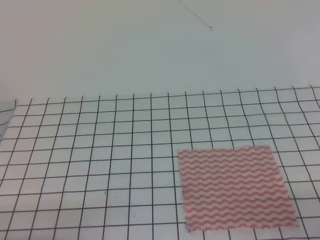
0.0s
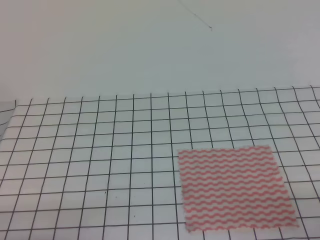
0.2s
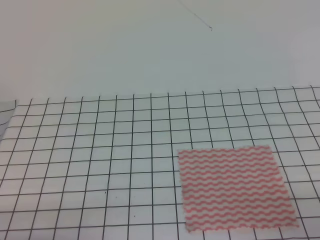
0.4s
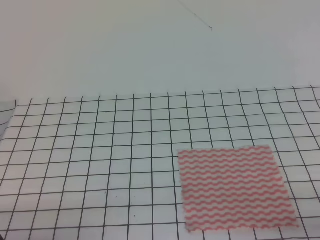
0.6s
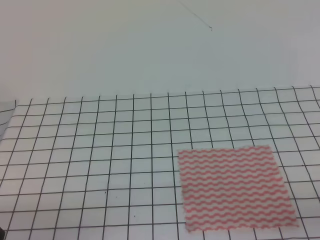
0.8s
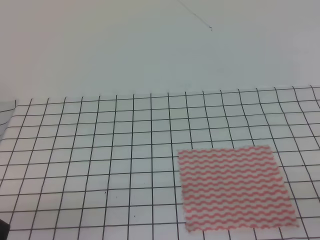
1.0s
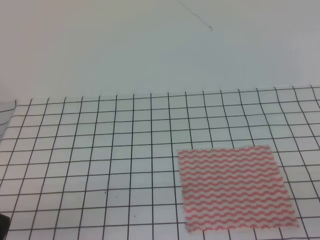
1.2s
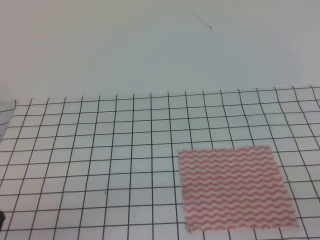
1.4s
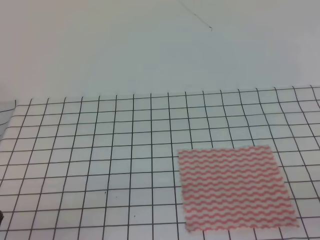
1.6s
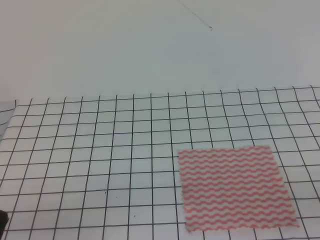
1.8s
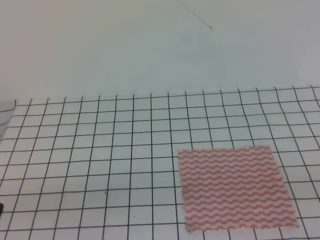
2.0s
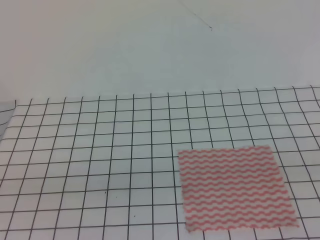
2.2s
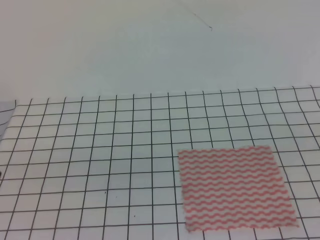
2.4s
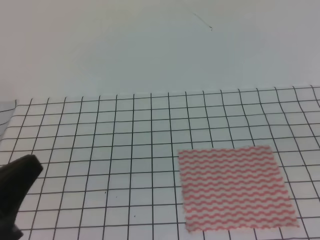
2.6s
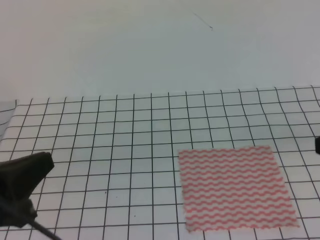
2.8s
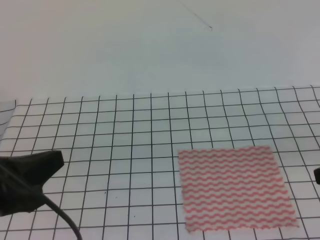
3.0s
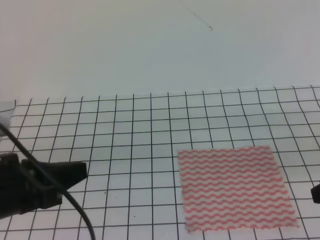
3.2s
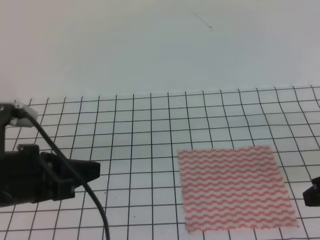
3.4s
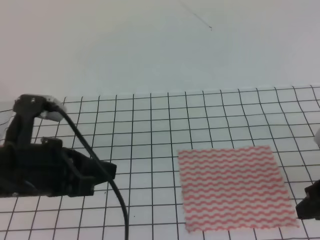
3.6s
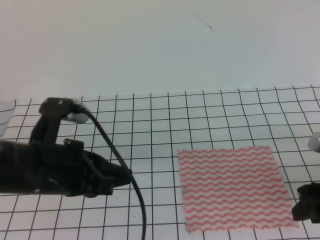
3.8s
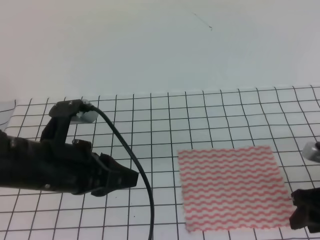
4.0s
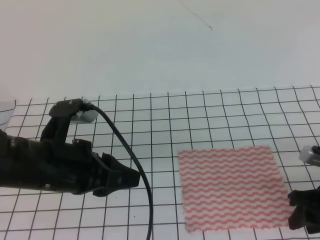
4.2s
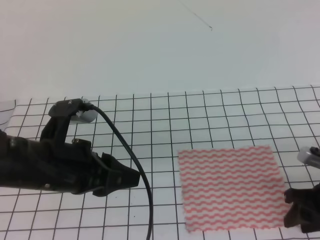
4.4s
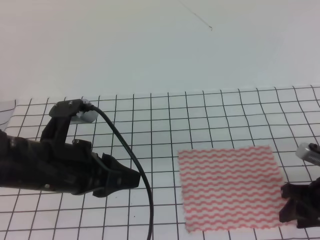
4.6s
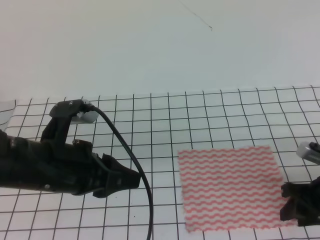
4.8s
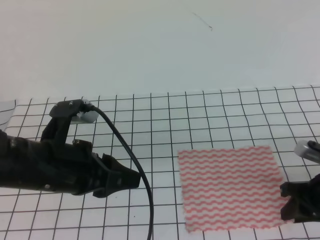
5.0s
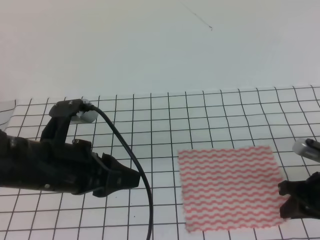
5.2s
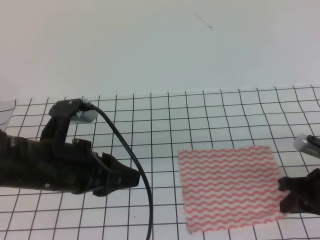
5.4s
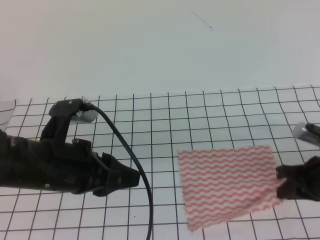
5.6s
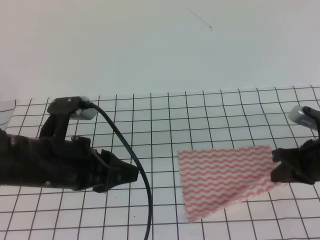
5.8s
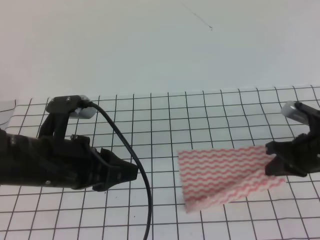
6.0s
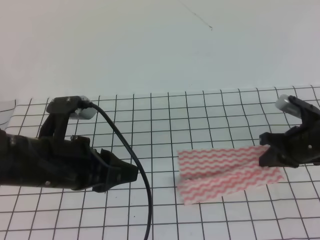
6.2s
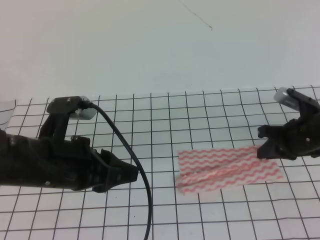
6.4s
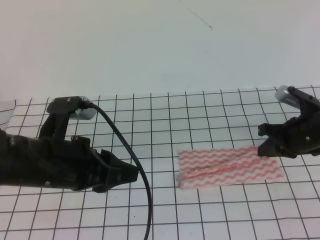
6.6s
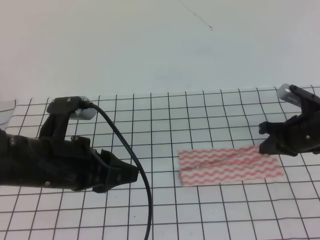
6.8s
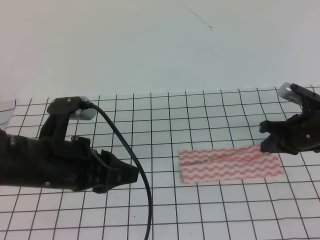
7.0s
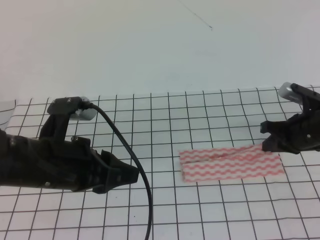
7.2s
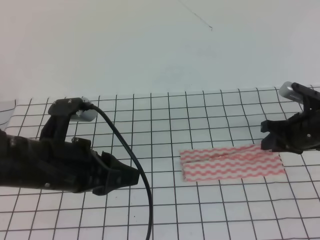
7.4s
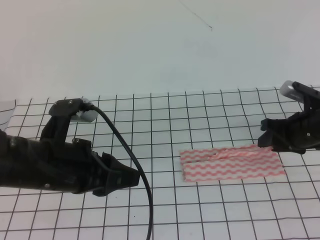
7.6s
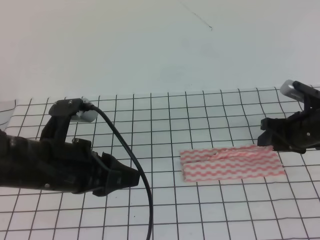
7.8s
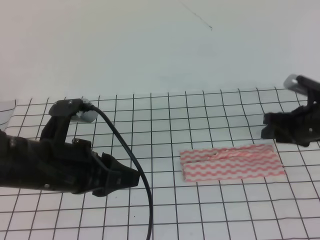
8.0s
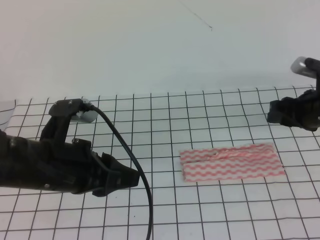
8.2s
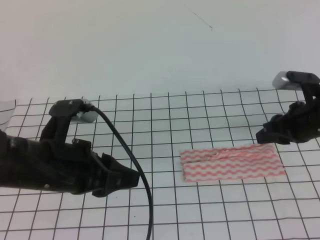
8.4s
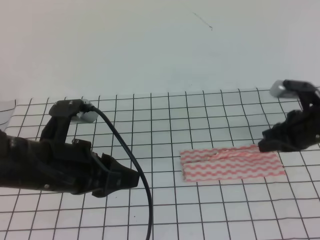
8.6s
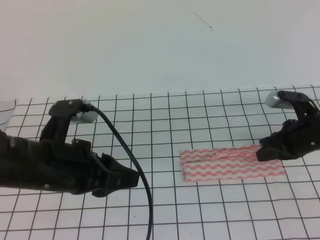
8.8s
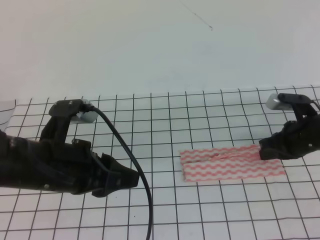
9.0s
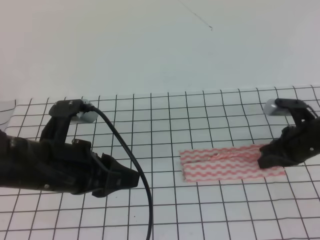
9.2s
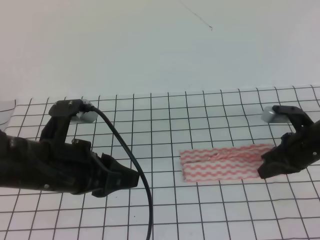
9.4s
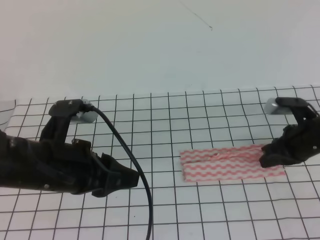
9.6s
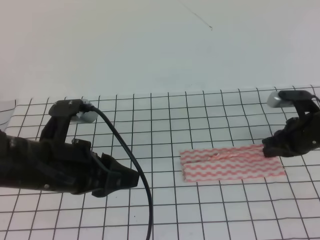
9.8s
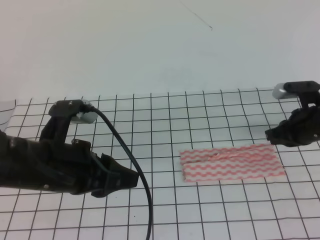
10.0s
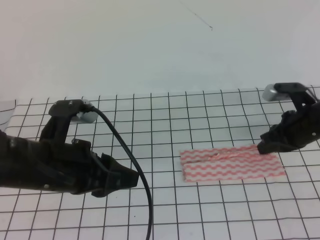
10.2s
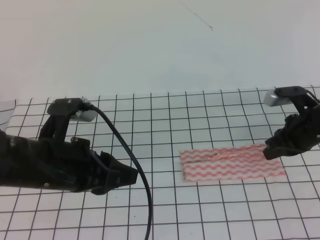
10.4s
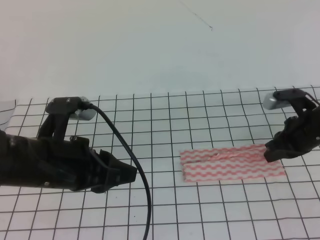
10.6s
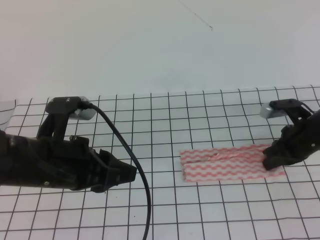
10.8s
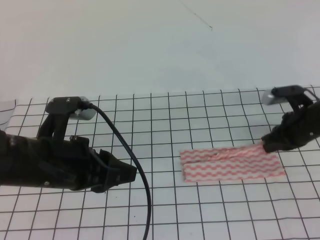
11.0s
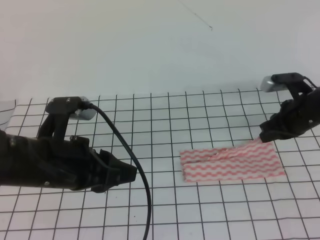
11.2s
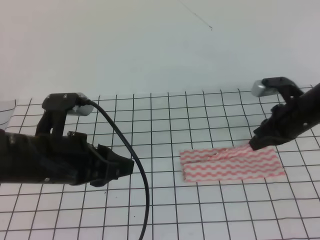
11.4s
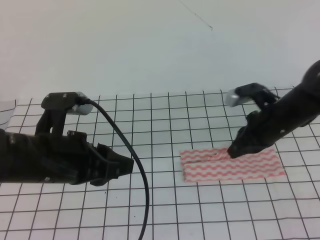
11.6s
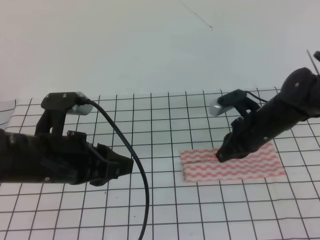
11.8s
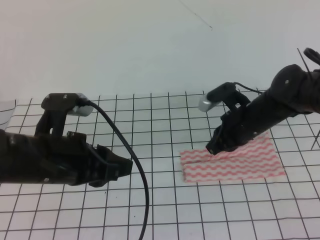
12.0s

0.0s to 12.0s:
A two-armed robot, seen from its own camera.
Step, 0.0s to 5.0s: Fold the towel upwards with the right gripper.
1.6s to 3.0s: The left gripper shifts some 15 cm upward and forward.
3.0s to 4.4s: The left gripper goes some 10 cm forward and to the right, and opens its fingers; the right gripper moves downward and forward, approximately 15 cm, and opens up.
4.4s to 6.0s: The right gripper is displaced forward by roughly 5 cm, and closes its fingers.
6.0s to 7.6s: The right gripper goes some 5 cm forward, and opens.
7.6s to 9.0s: The right gripper closes its fingers.
9.0s to 10.4s: The grippers move only a little.
10.4s to 12.0s: The right gripper moves to the left, approximately 10 cm.

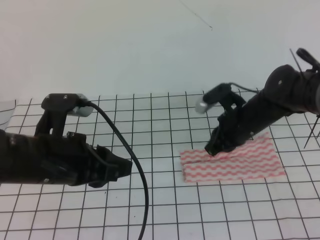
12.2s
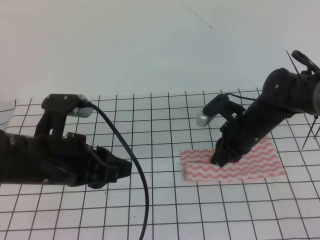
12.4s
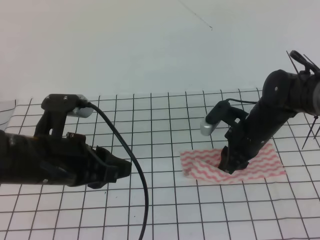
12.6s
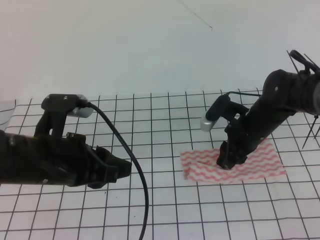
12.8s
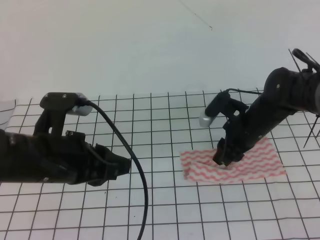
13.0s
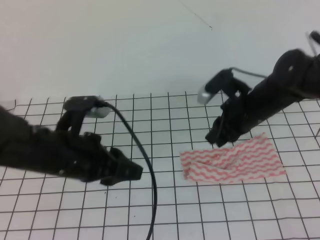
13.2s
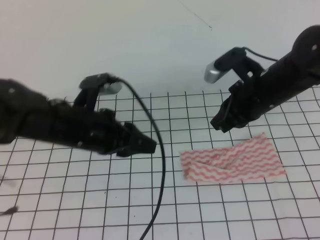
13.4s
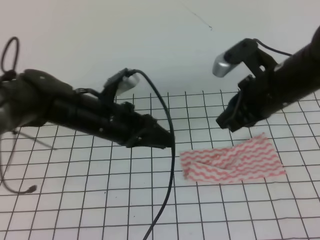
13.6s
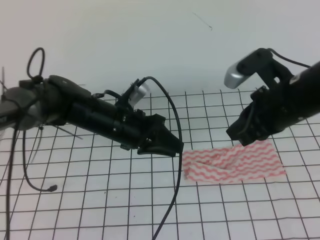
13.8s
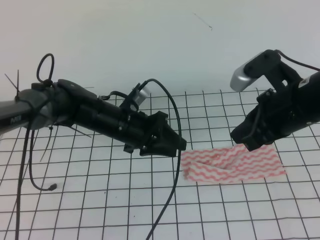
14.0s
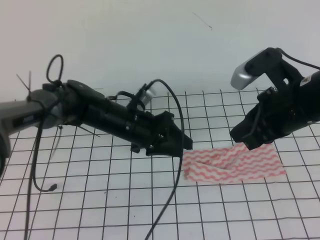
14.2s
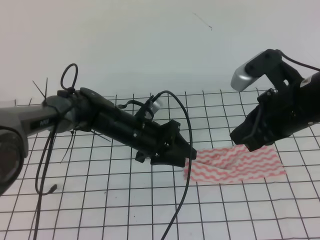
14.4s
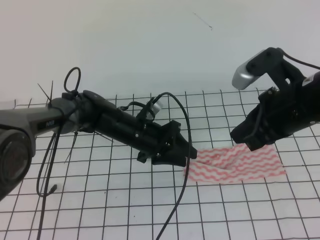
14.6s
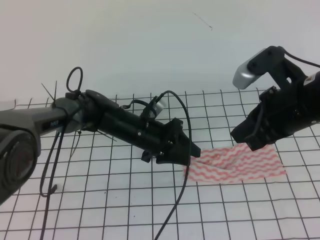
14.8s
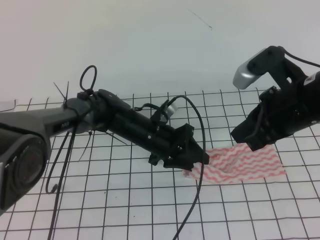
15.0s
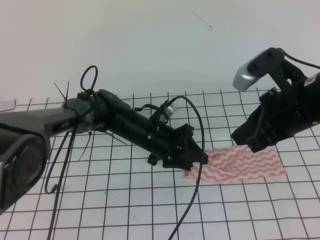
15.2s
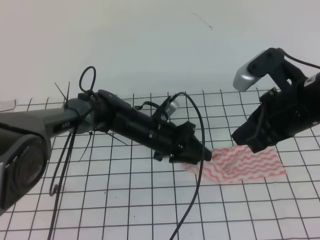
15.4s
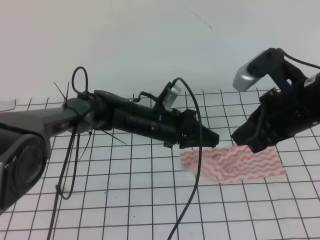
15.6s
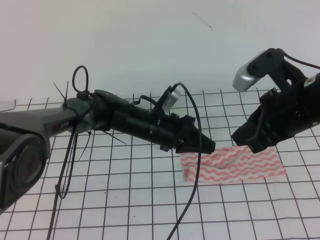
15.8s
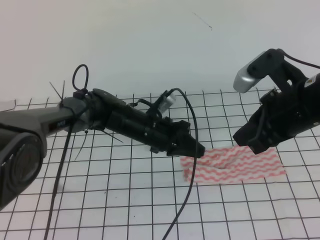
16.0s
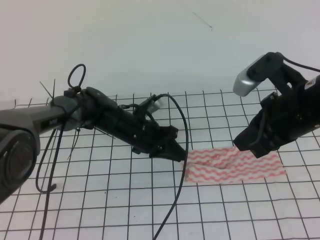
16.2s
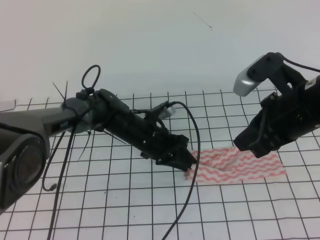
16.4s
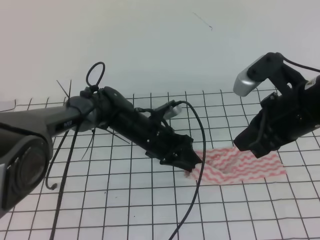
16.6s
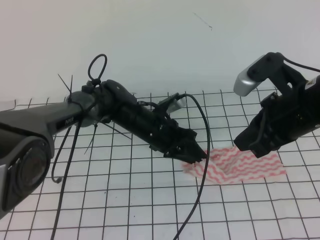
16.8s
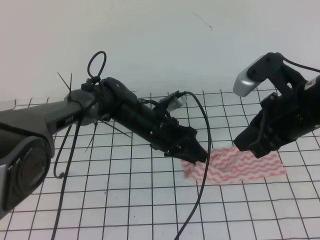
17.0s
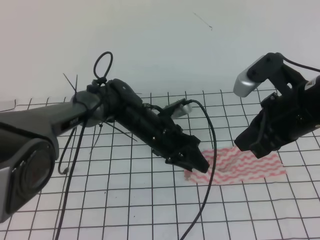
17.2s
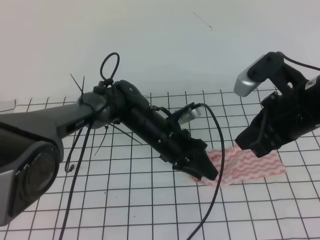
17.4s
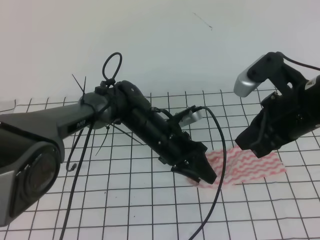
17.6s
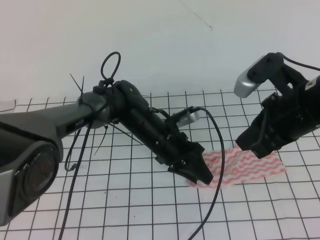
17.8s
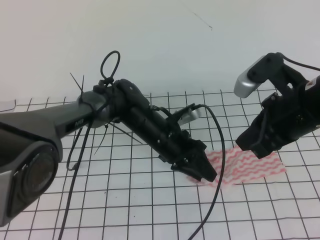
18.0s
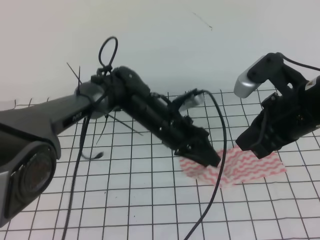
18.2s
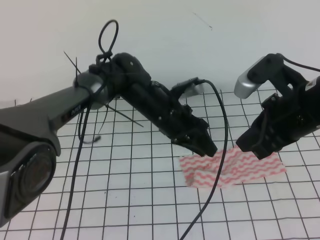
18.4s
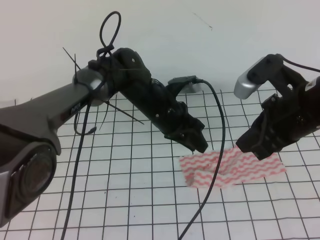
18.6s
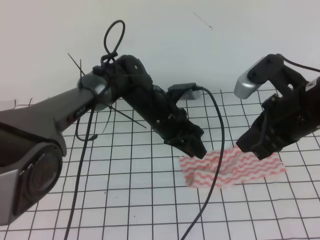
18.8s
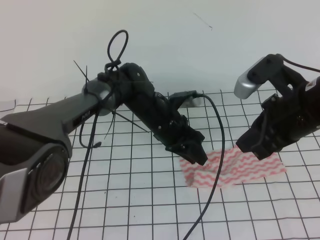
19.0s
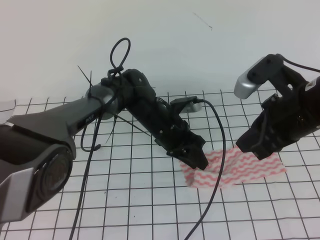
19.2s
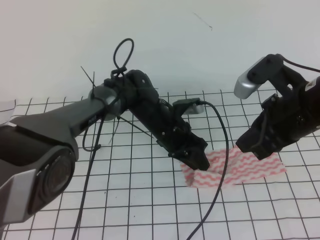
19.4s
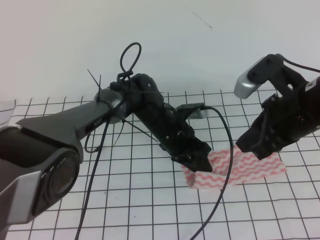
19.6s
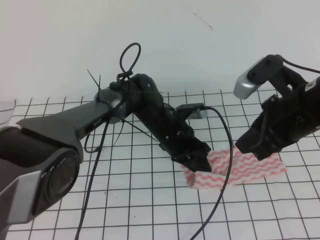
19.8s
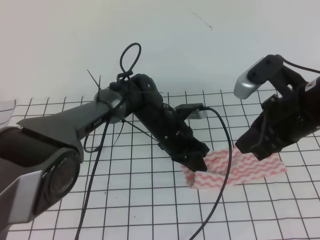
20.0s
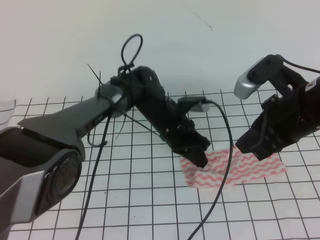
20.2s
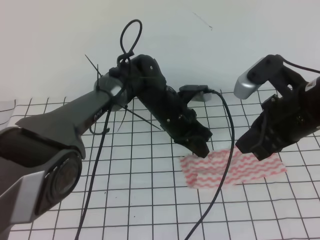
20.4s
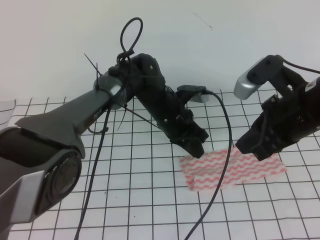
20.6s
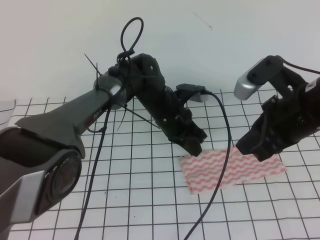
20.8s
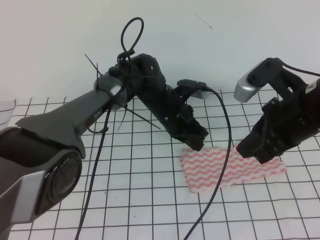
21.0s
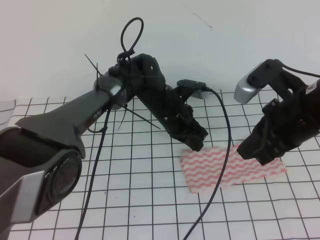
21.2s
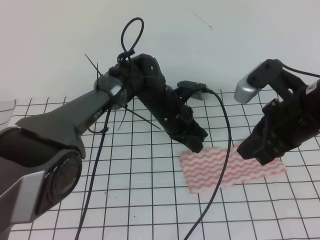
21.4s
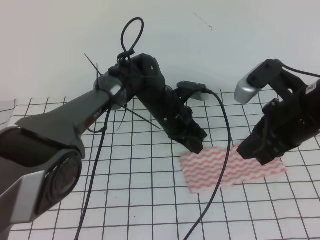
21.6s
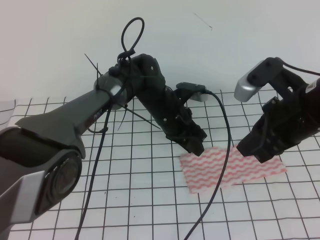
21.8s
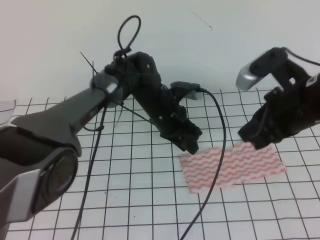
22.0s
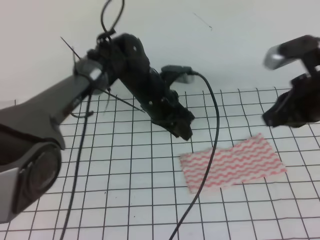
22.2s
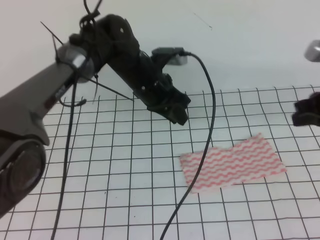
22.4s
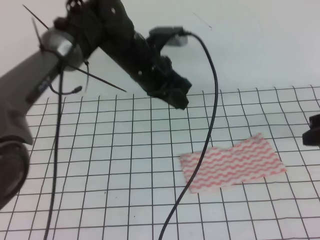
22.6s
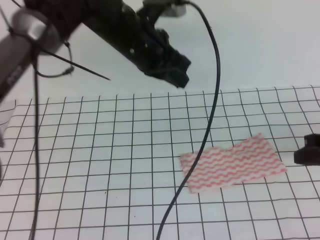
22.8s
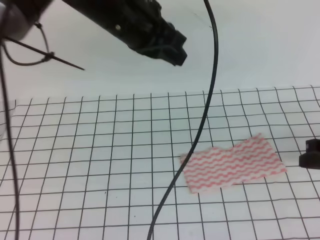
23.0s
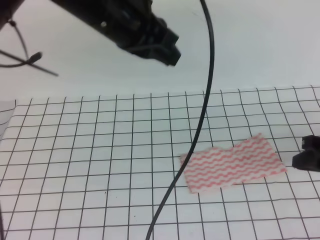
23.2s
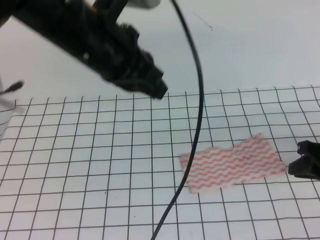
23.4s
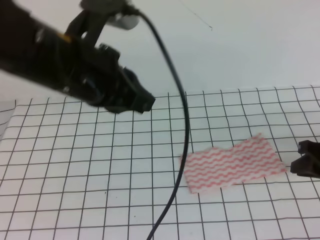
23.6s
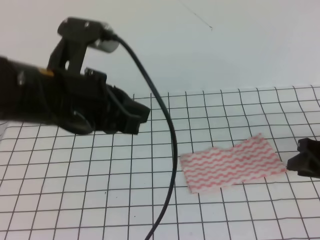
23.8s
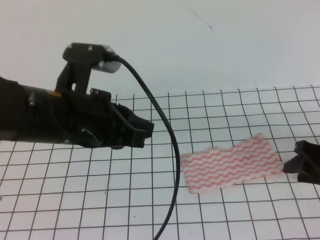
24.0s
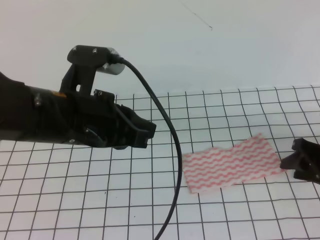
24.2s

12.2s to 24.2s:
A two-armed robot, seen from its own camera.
Step, 13.6s to 17.0s: Fold the towel from right to left with the right gripper.
Step, 17.2s to 24.2s: Tidy up the towels.
12.2s to 13.8s: The right gripper goes about 15 cm upward and backward, and opens, then closes again. Meanwhile the left gripper heads forward, to the right and downward, covering approximately 15 cm.
13.8s to 15.2s: The left gripper moves downward and to the right, roughly 10 cm.
15.2s to 16.6s: The left gripper closes, then reopens.
16.6s to 18.2s: The left gripper changes place by roughly 5 cm.
18.2s to 19.8s: There are only small adjustments of the grippers.
19.8s to 21.2s: The left gripper closes its fingers.
21.2s to 22.6s: The left gripper moves upward, about 10 cm, and opens, then closes once more. Meanwhile the right gripper travels to the right by roughly 10 cm.
22.6s to 24.2s: The left gripper heads backward and to the left, covering roughly 20 cm. Meanwhile the right gripper heads downward, covering approximately 10 cm, and opens up.
